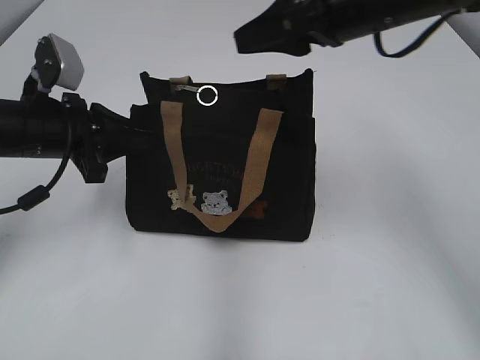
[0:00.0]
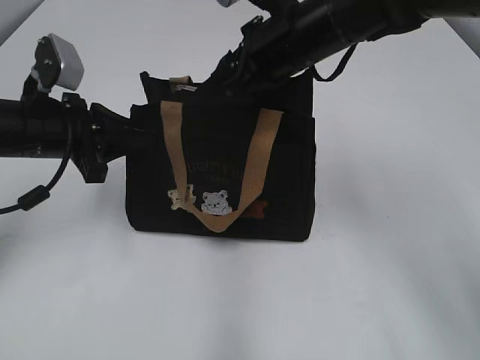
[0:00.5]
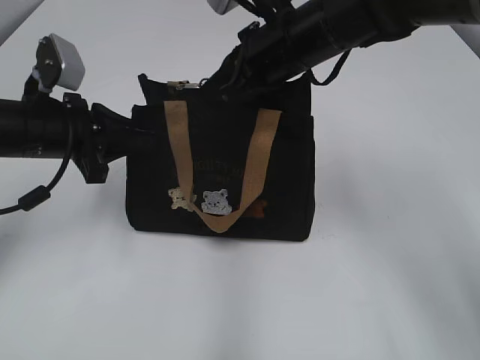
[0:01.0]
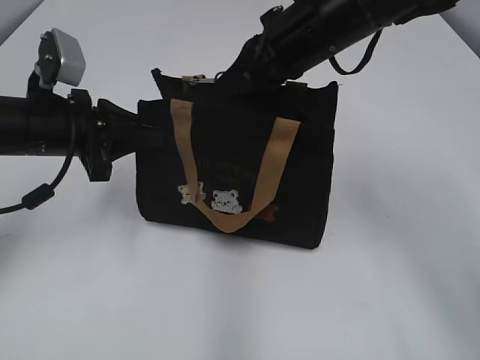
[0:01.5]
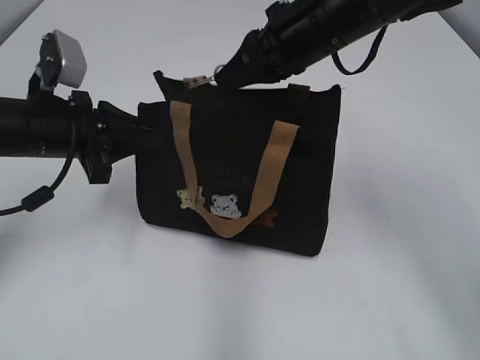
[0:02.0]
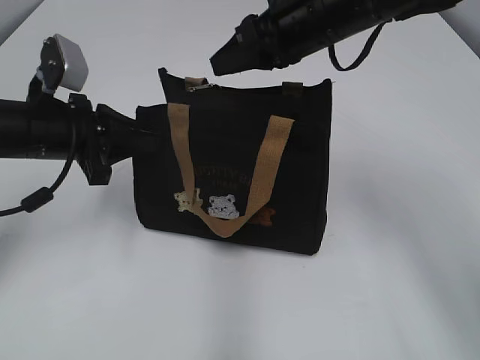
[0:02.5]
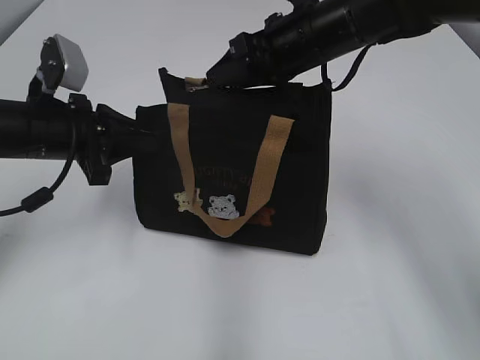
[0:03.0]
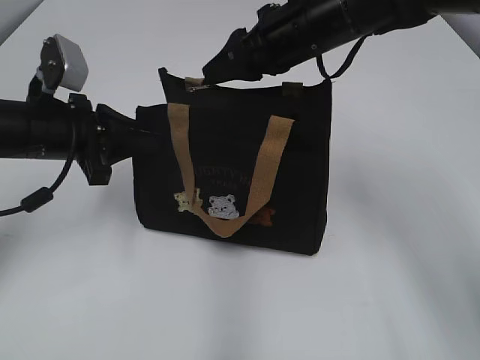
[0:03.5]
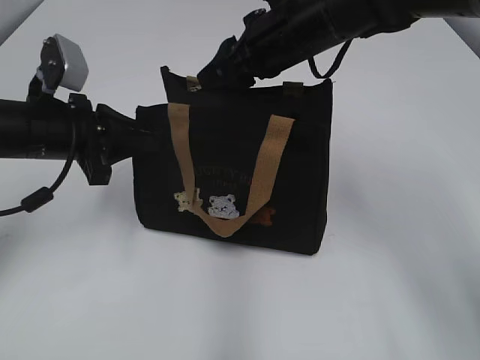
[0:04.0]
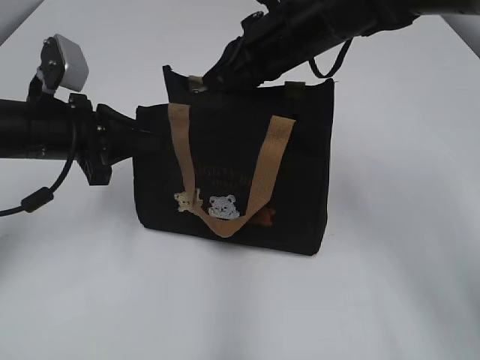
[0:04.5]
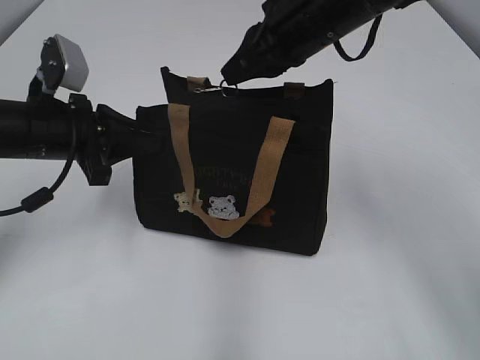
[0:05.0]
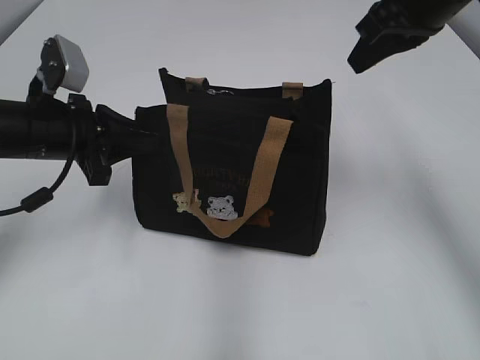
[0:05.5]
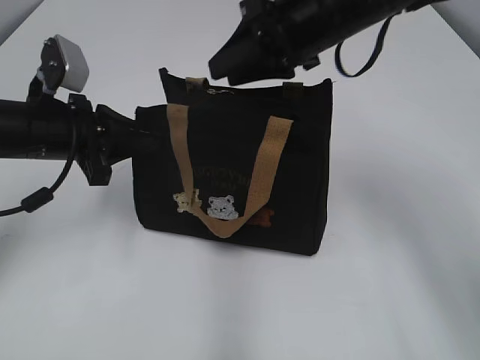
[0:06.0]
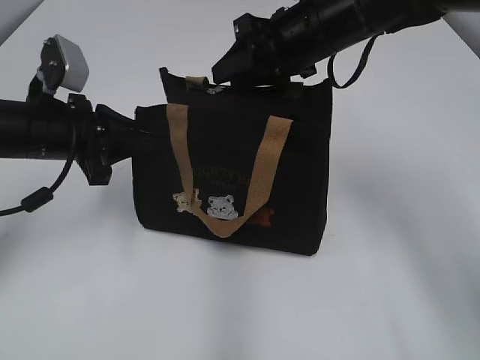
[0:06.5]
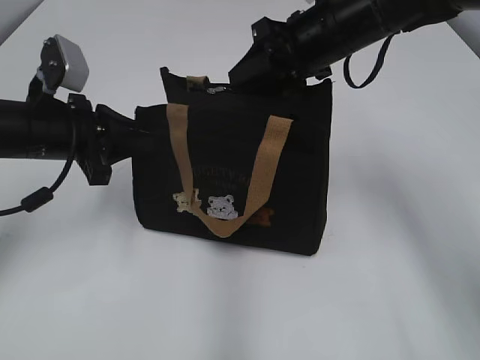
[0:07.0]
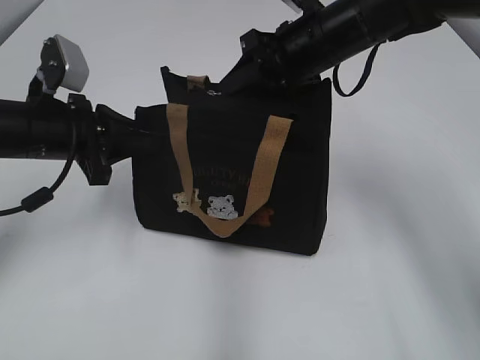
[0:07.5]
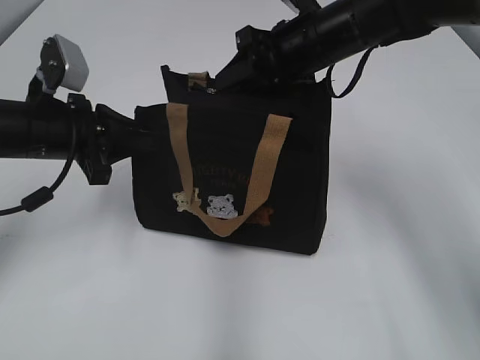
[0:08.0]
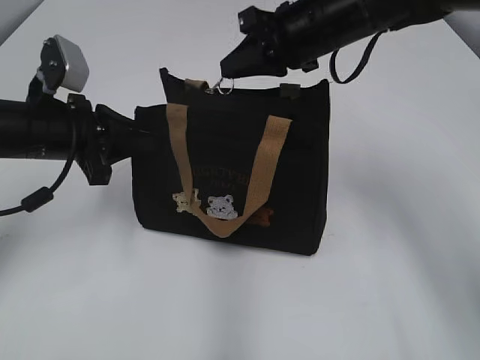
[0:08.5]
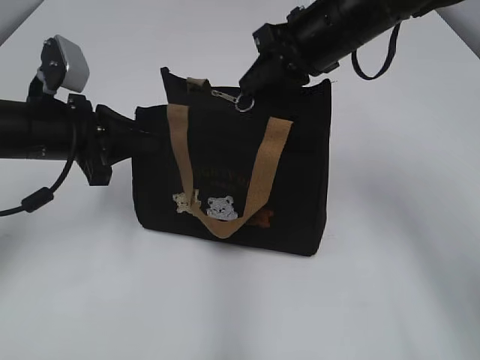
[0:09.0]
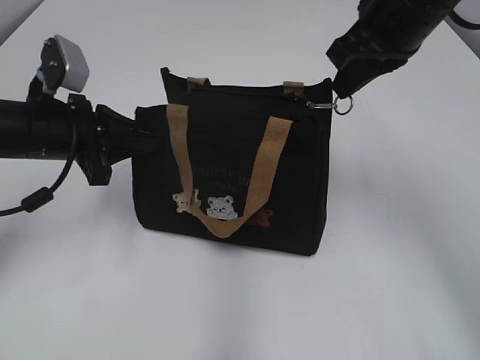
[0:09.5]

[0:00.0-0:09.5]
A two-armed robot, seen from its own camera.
0:00.0 to 0:02.0: The right gripper closes its fingers.
0:02.0 to 0:04.0: The right gripper opens its fingers.
0:04.0 to 0:05.5: The right gripper heads to the right and upward, covering roughly 15 cm, and closes up.
0:05.5 to 0:07.5: The right gripper goes approximately 10 cm downward and to the left, and opens its fingers.
0:07.5 to 0:09.5: The right gripper is displaced upward and to the right by about 10 cm, and closes up.

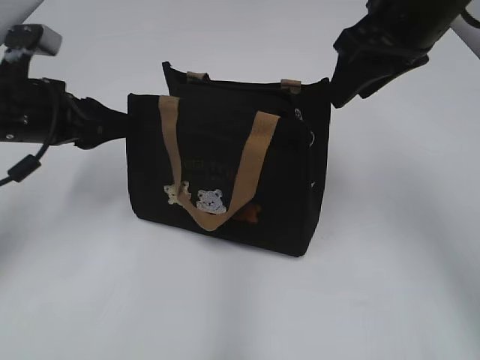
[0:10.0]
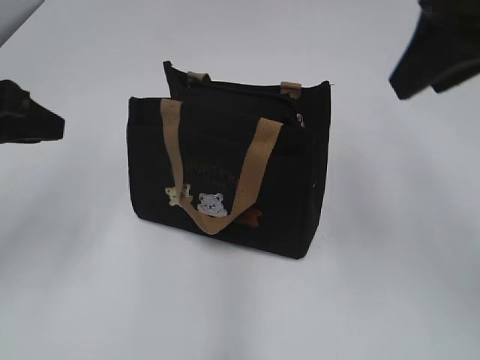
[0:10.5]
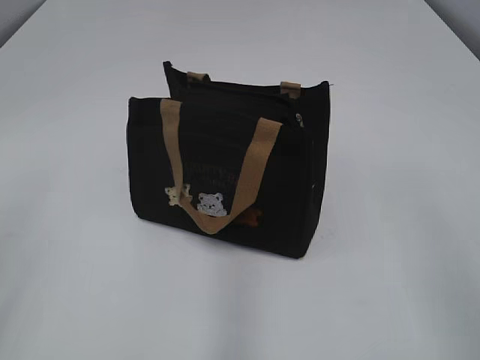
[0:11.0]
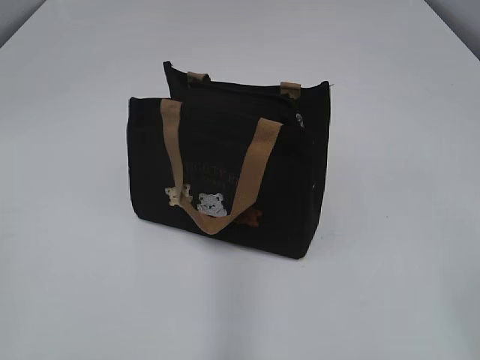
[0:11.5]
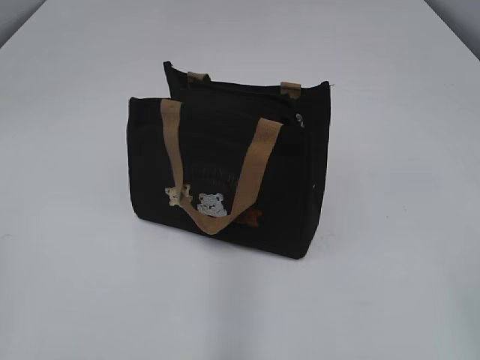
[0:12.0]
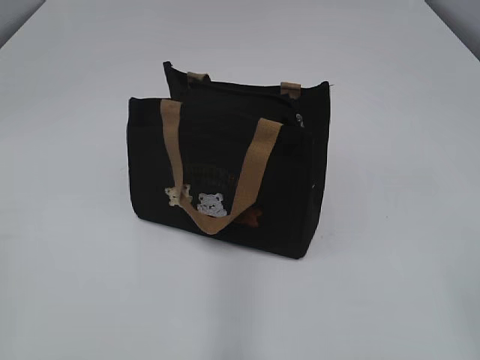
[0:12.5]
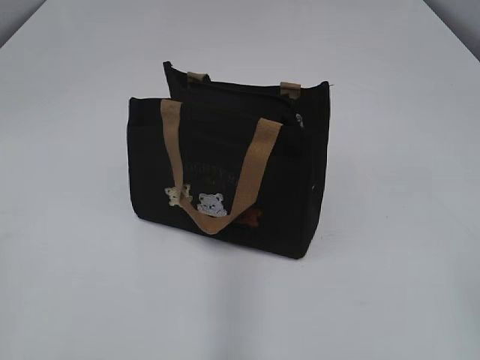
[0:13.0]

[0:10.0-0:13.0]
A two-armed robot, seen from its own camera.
0:10.0 to 0:11.5: Both grippers move backward, roughly 30 cm.
